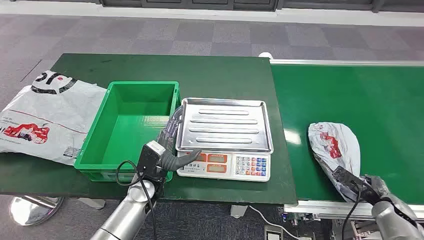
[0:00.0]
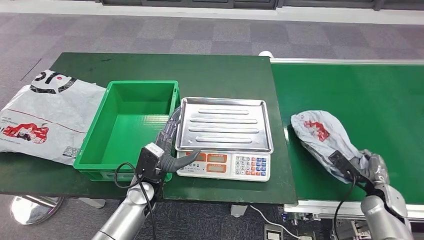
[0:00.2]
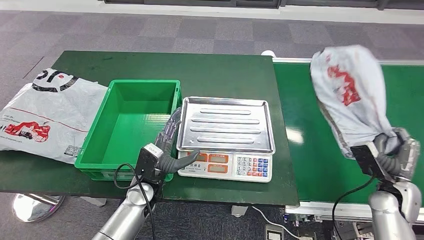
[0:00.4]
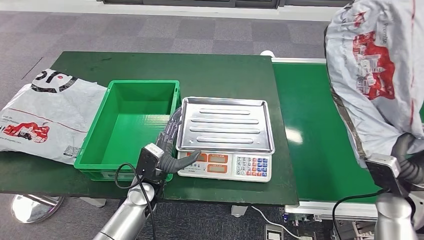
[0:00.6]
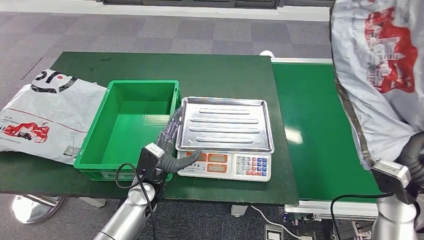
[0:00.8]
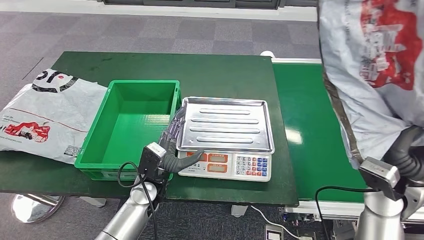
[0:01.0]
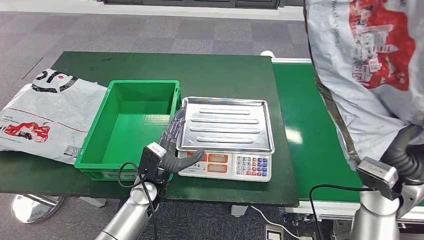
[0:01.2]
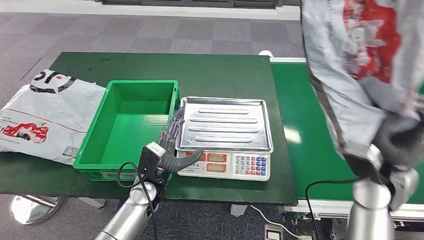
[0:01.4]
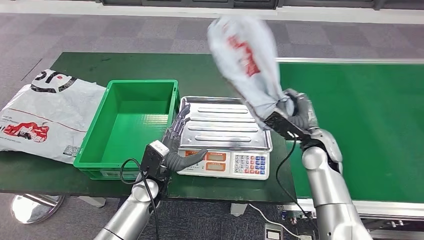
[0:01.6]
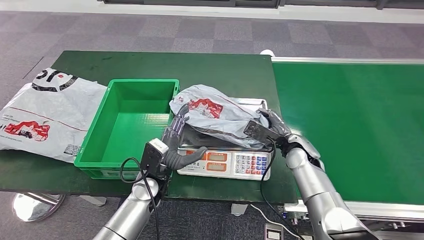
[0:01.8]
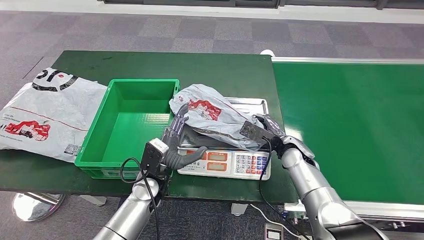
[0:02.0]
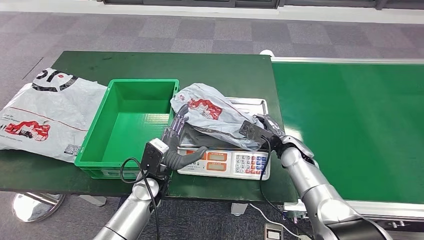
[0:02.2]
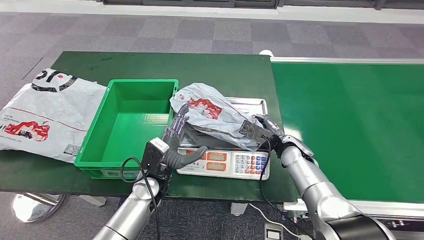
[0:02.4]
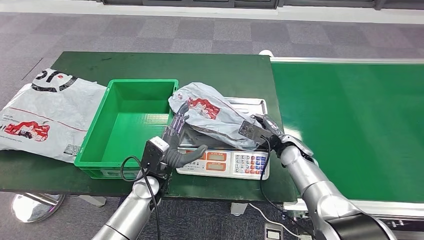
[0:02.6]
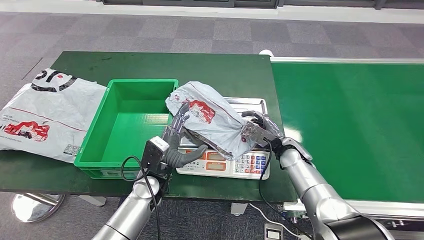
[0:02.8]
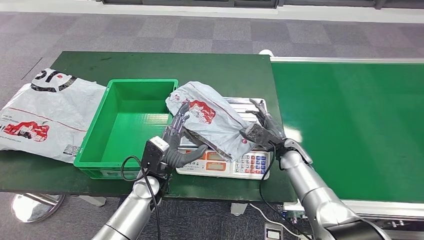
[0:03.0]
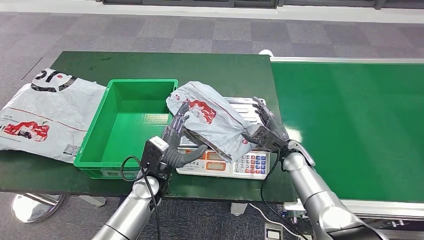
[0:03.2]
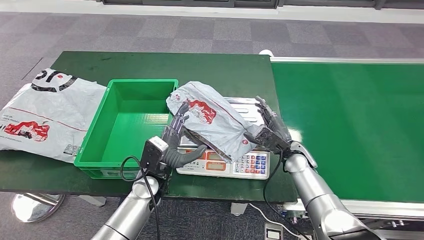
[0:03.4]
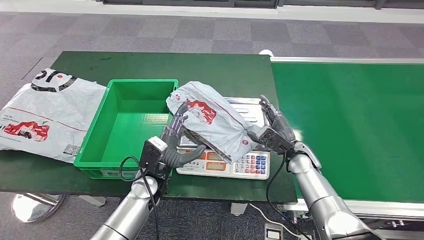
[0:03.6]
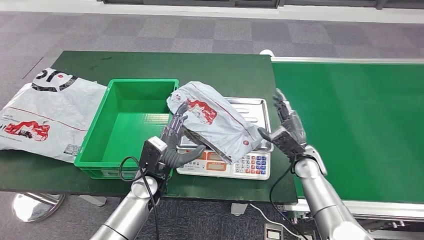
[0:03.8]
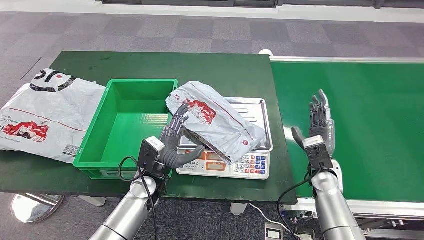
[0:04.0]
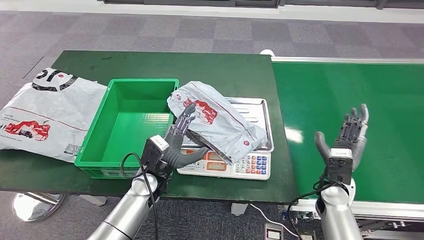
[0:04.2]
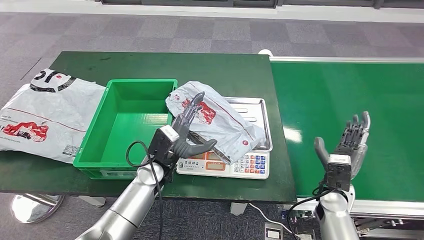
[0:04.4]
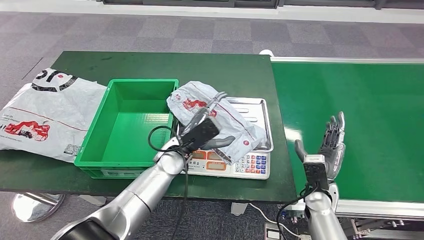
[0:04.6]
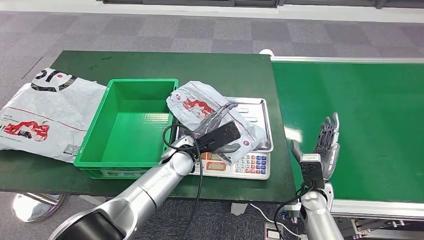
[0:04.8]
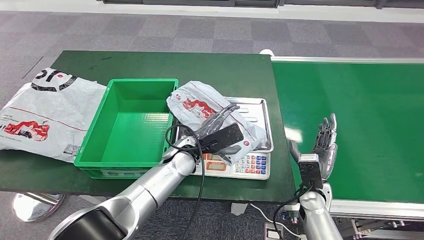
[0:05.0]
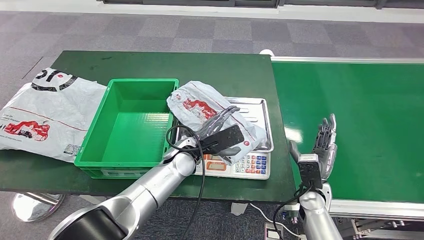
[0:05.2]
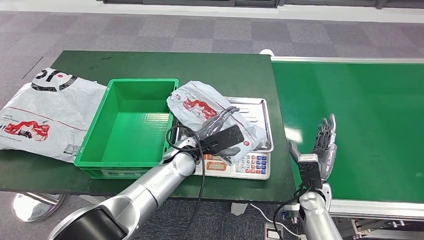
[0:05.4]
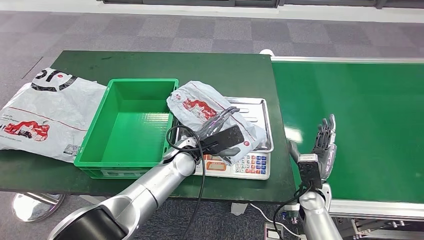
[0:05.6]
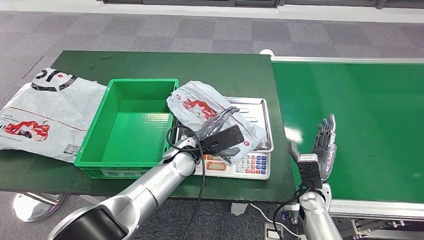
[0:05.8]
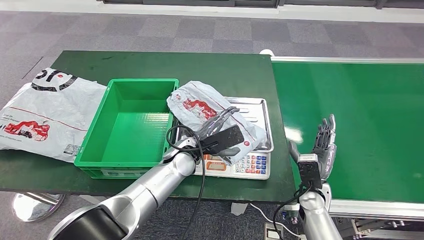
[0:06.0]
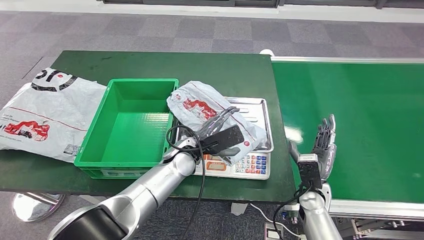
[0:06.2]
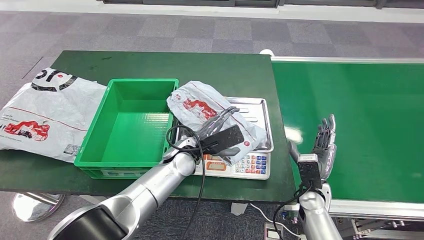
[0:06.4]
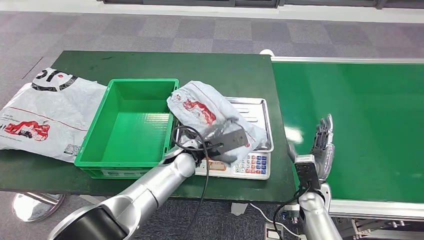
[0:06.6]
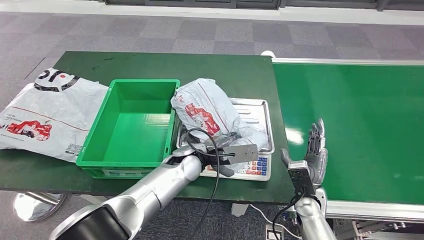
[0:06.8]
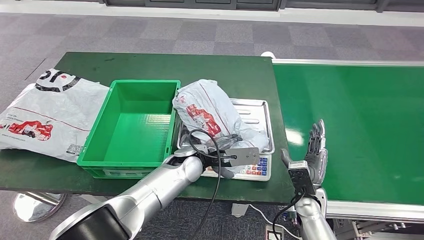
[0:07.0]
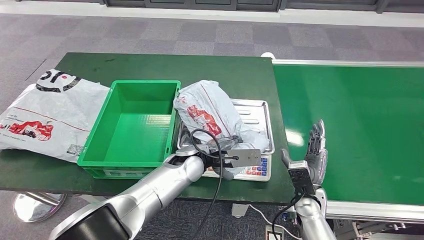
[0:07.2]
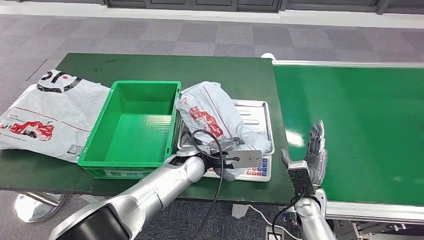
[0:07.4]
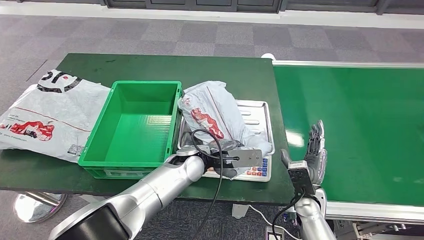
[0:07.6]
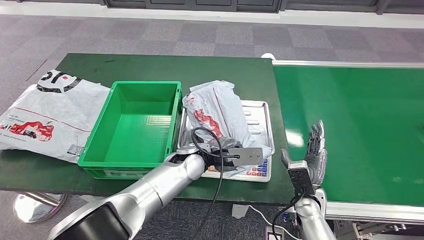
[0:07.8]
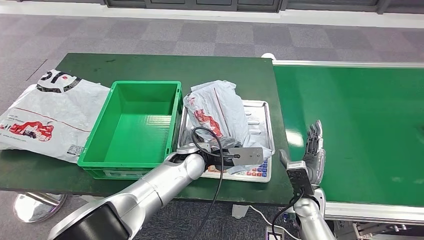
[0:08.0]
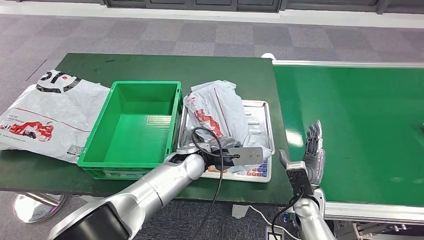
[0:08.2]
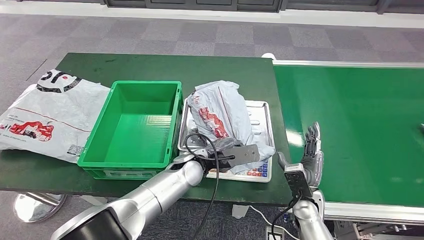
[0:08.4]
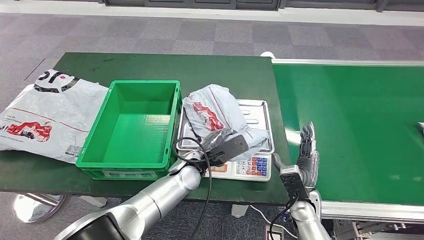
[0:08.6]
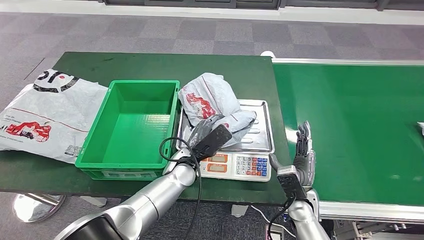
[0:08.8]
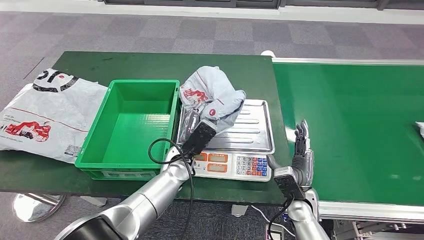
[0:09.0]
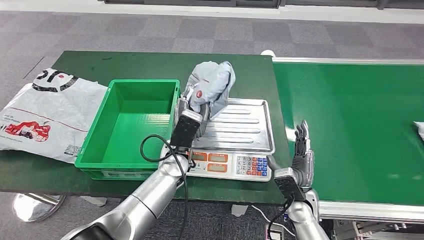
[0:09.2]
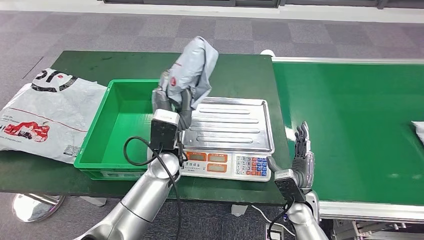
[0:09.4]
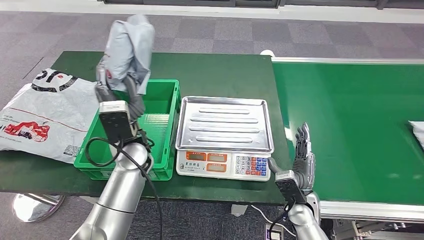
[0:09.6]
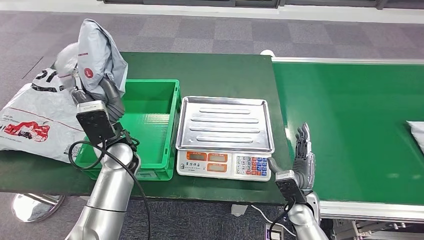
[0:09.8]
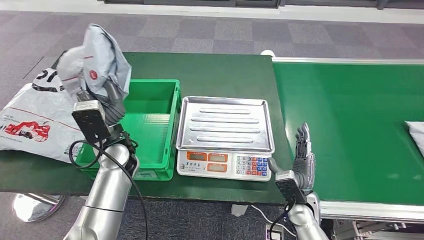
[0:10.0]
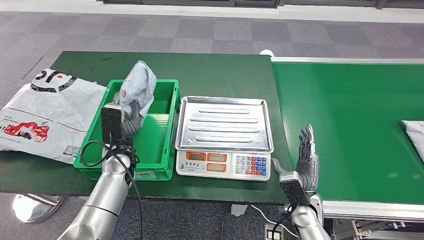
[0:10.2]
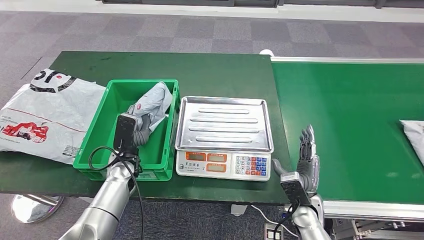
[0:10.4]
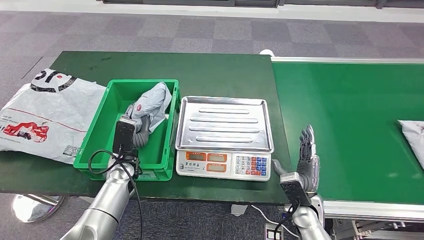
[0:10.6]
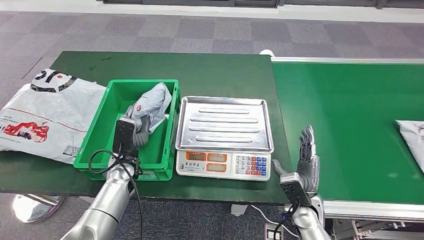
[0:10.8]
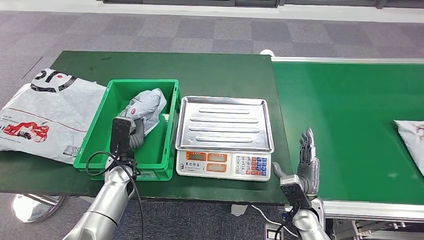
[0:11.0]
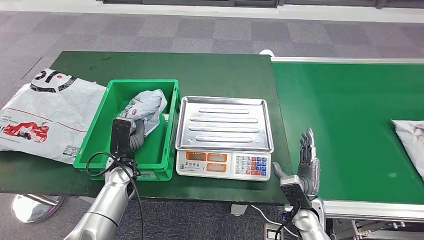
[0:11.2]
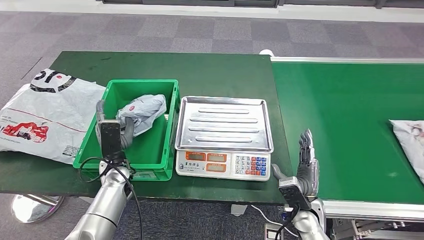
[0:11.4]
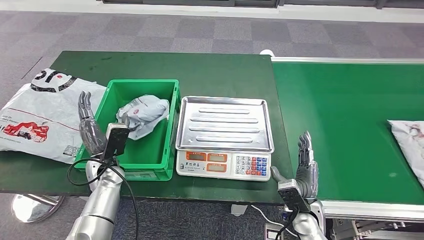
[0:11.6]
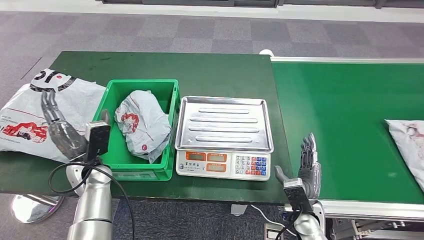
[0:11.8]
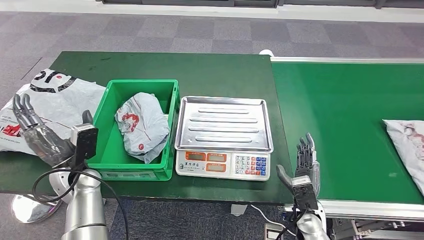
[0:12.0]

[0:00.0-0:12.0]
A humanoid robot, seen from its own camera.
Step, 0:00.0 to 0:01.0: Take the parcel off the conveyor belt.
Step, 0:01.2 to 0:03.4: Place the parcel onto the inbound machine.
Step, 0:07.4 to 0:09.0: Pick up the parcel from the inbound machine.
Step, 0:09.4 to 0:11.6: Put the parcel inside the courier box.
0:03.0 to 0:04.4: The right hand is displaced backward and to the right by roughly 15 cm.
0:04.4 to 0:06.0: The left hand travels to the right by roughly 5 cm.
0:10.4 to 0:12.0: The left hand is displaced to the left by approximately 10 cm.

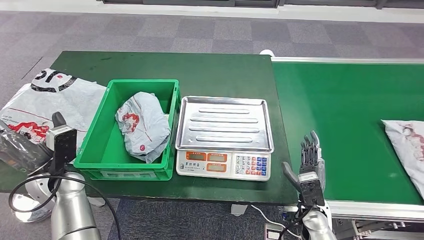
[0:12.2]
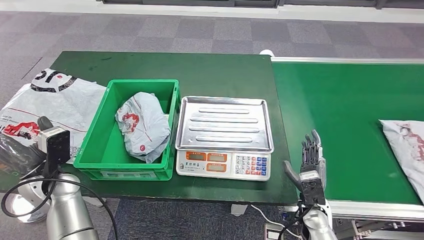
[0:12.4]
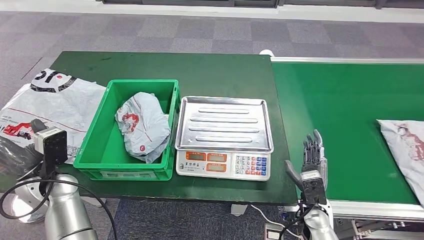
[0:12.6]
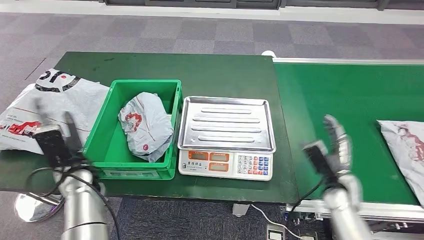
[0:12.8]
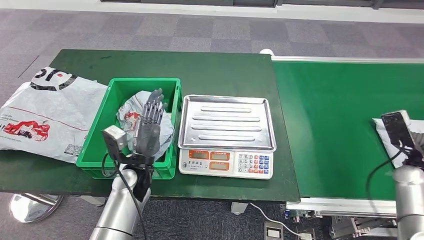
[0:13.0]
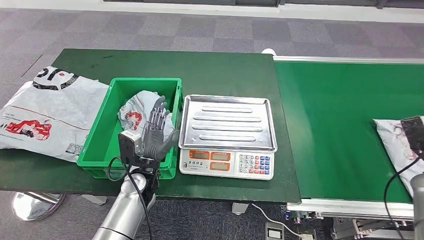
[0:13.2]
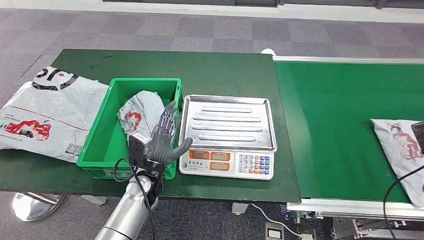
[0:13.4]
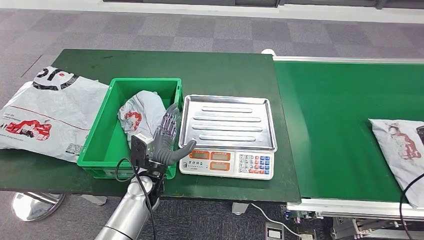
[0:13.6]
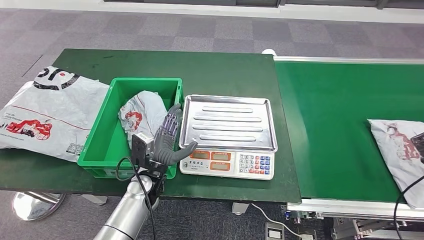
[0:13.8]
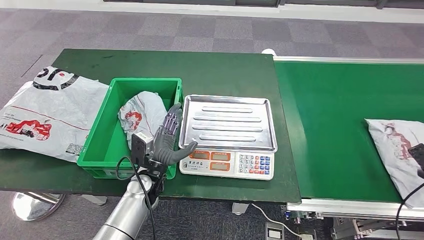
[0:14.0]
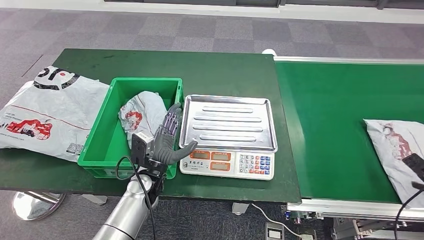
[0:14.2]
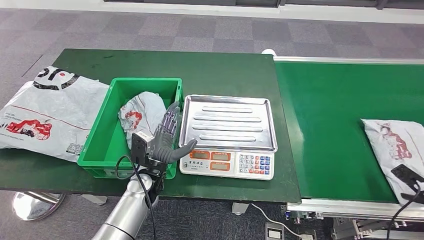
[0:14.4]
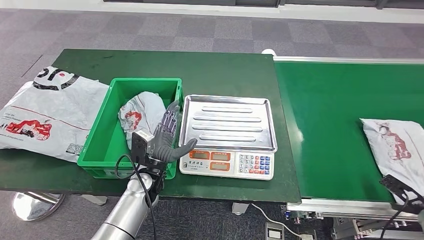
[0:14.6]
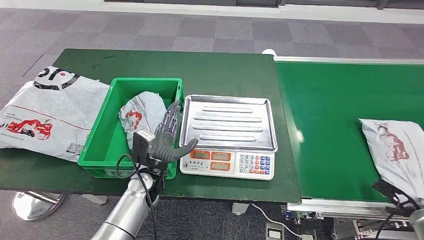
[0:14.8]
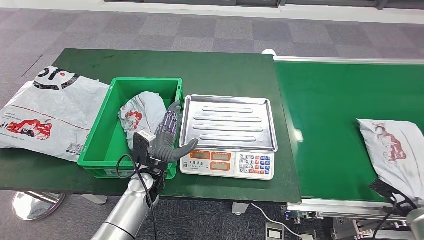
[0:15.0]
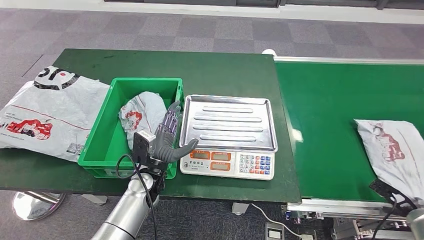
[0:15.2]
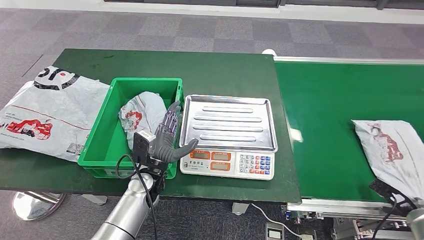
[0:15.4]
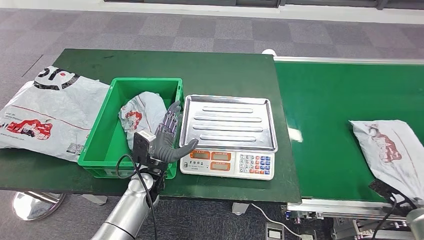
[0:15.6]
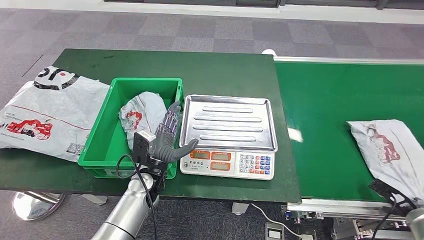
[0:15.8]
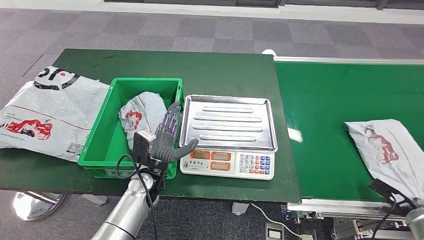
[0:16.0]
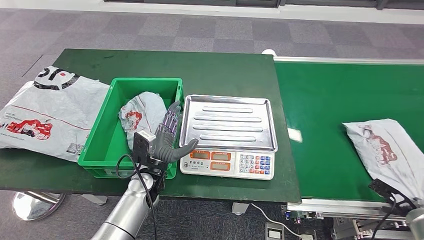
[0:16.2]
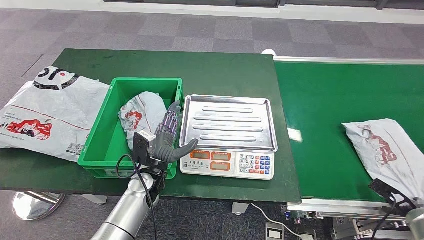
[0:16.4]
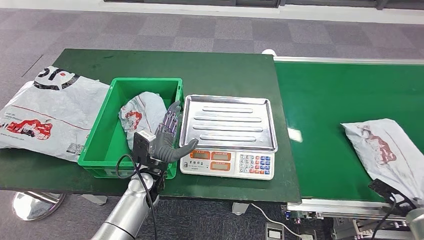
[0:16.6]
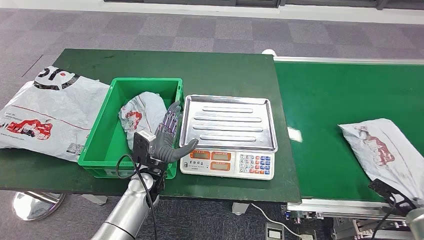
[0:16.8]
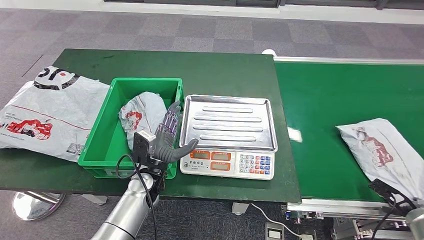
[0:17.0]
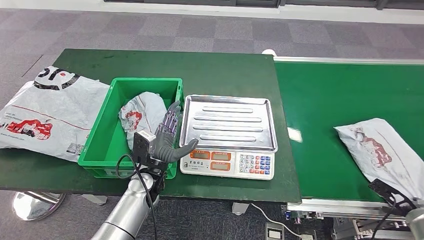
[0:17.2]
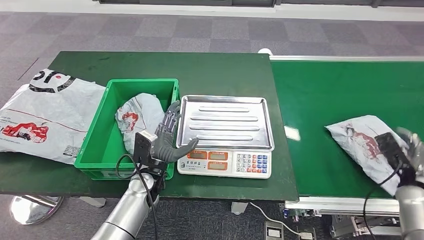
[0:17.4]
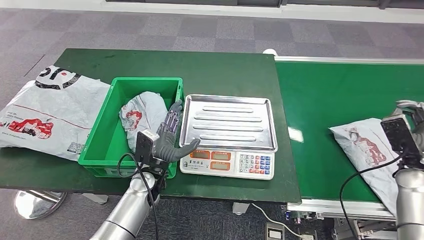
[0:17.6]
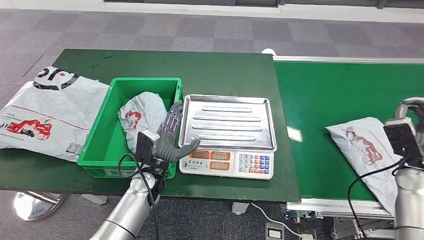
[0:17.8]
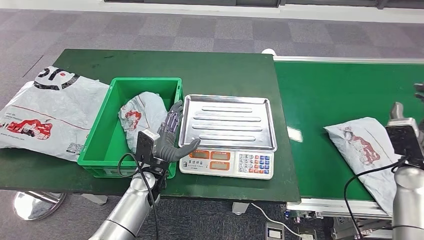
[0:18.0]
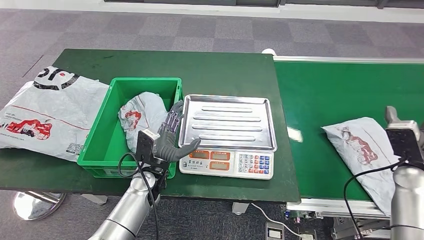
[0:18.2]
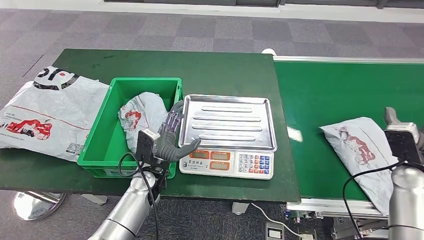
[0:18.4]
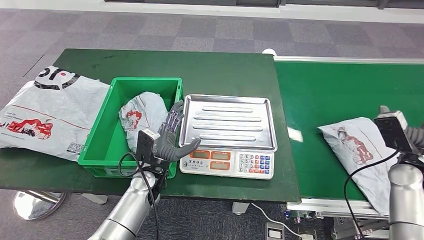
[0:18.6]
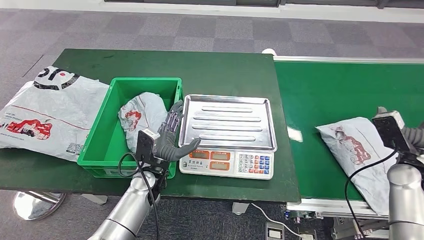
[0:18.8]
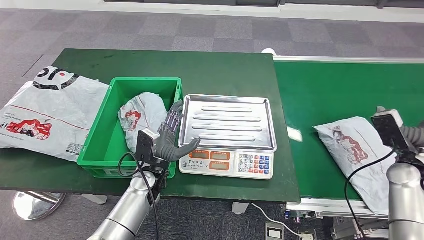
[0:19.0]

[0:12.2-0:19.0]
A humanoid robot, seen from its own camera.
0:13.6 to 0:15.0: The right hand shifts roughly 10 cm downward.
0:15.0 to 0:16.2: Neither hand changes place.
0:16.2 to 0:17.6: The right hand is displaced upward, forward and to the left by some 15 cm.
